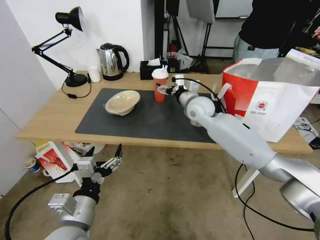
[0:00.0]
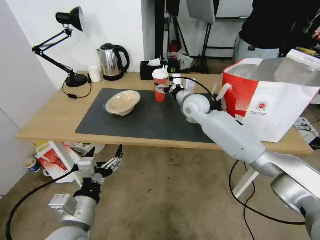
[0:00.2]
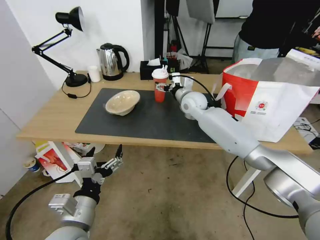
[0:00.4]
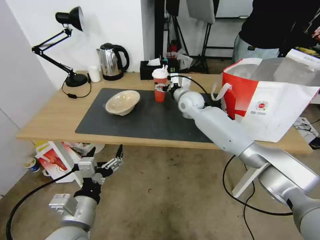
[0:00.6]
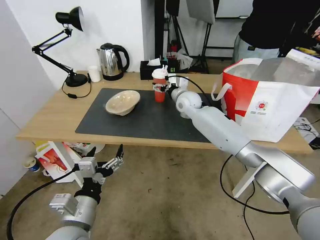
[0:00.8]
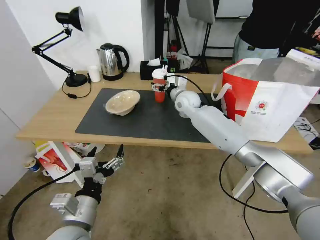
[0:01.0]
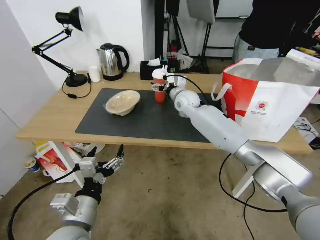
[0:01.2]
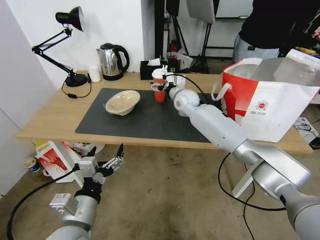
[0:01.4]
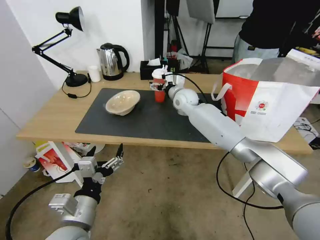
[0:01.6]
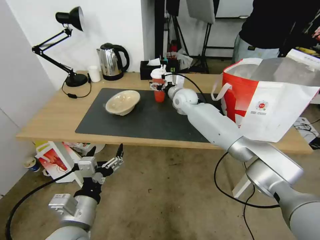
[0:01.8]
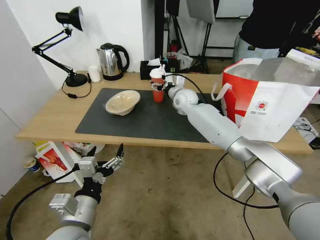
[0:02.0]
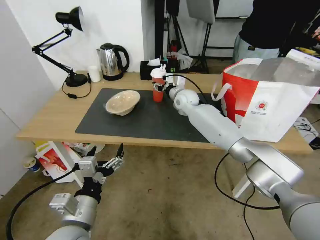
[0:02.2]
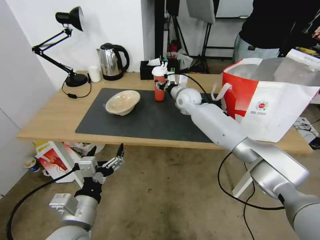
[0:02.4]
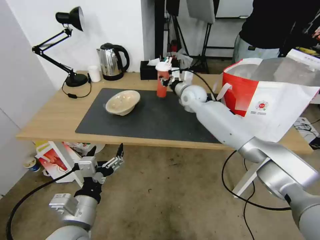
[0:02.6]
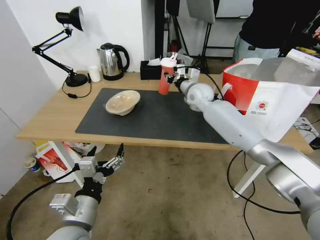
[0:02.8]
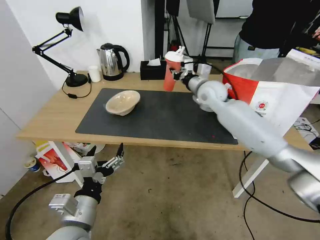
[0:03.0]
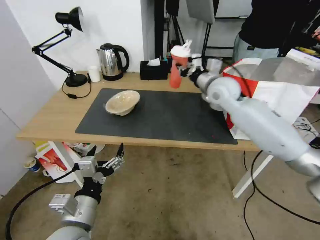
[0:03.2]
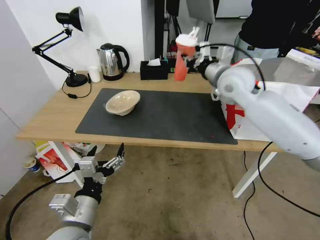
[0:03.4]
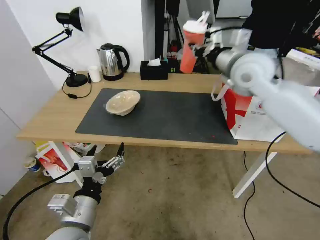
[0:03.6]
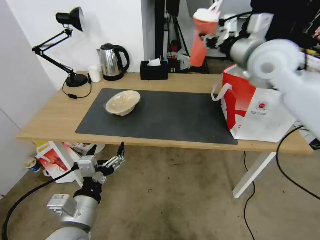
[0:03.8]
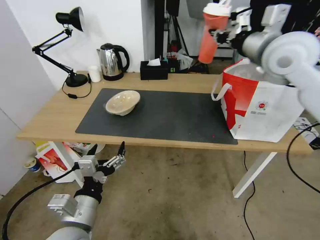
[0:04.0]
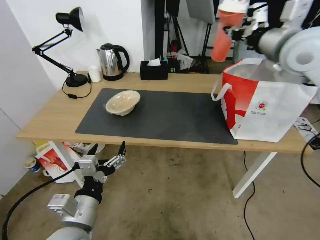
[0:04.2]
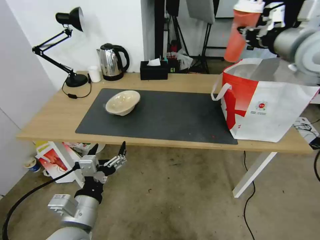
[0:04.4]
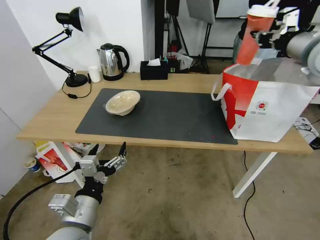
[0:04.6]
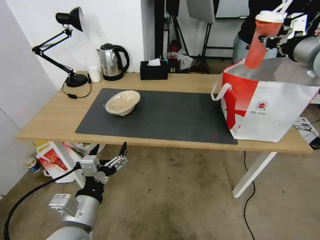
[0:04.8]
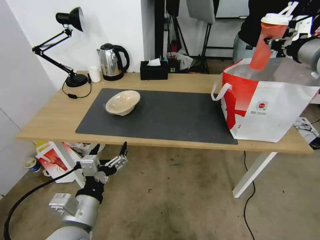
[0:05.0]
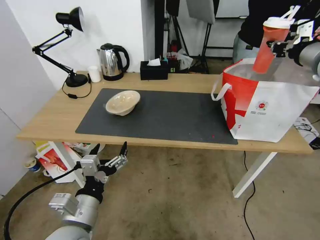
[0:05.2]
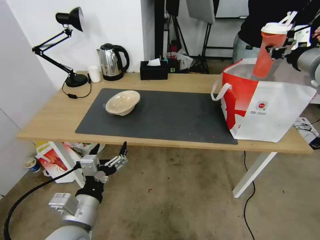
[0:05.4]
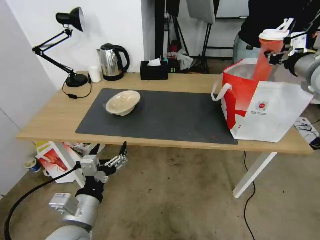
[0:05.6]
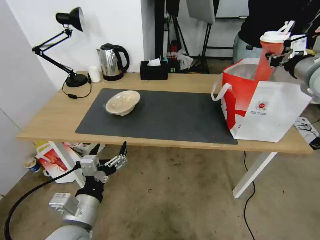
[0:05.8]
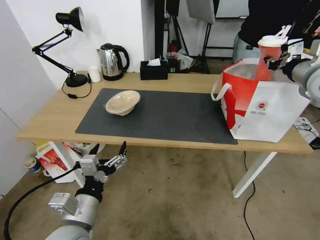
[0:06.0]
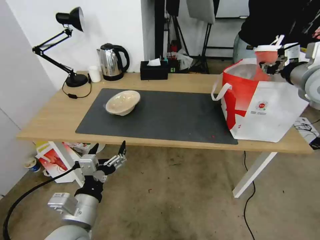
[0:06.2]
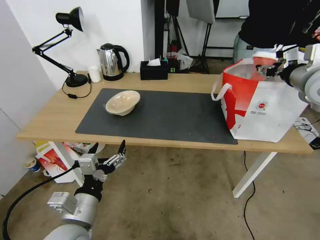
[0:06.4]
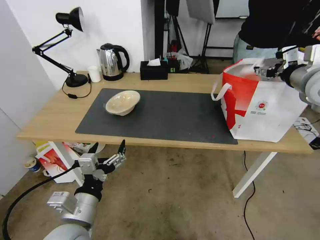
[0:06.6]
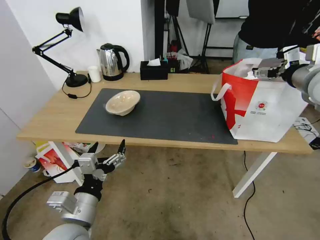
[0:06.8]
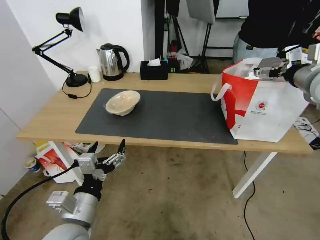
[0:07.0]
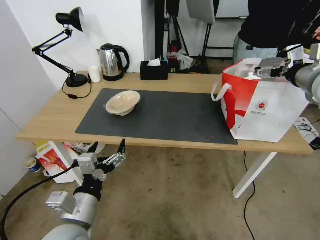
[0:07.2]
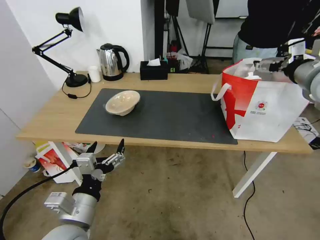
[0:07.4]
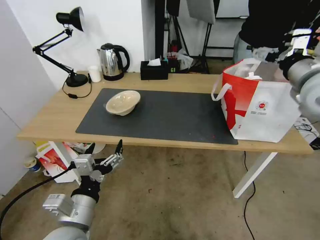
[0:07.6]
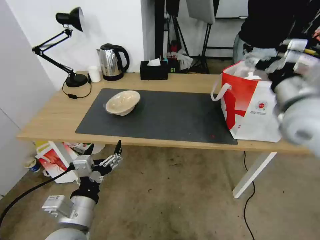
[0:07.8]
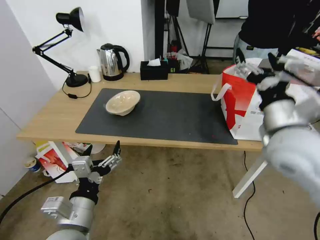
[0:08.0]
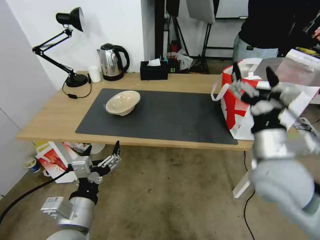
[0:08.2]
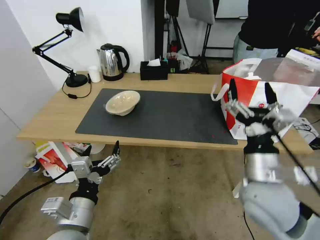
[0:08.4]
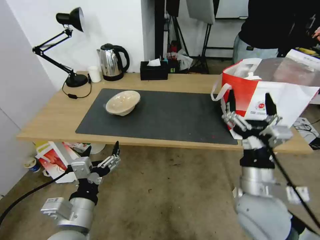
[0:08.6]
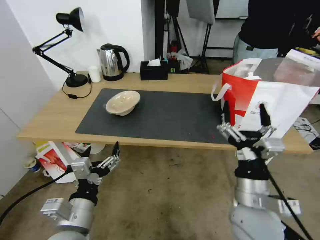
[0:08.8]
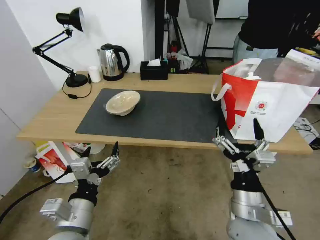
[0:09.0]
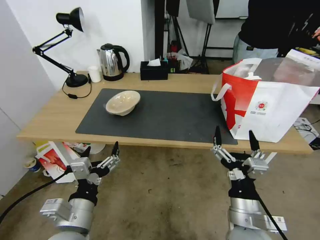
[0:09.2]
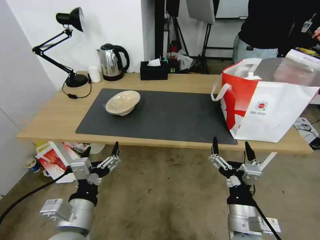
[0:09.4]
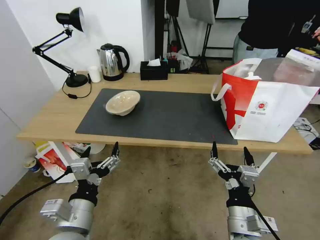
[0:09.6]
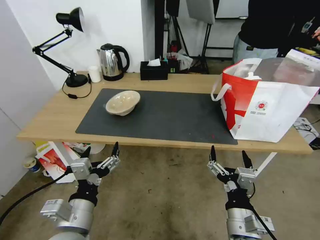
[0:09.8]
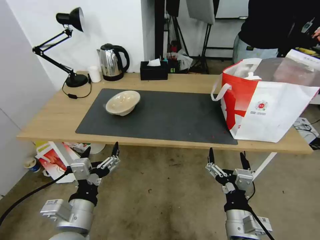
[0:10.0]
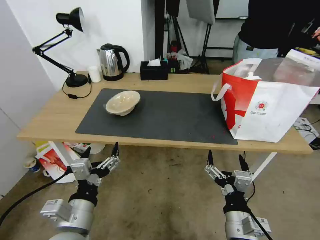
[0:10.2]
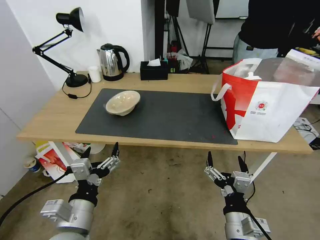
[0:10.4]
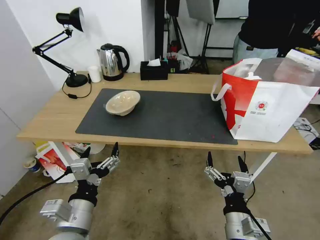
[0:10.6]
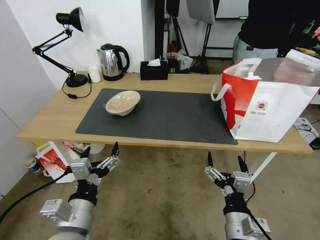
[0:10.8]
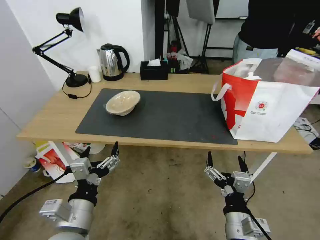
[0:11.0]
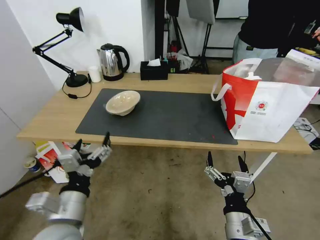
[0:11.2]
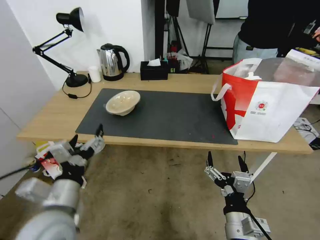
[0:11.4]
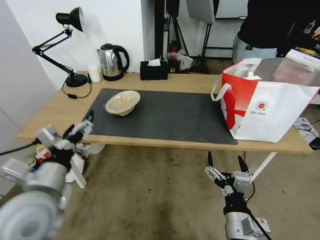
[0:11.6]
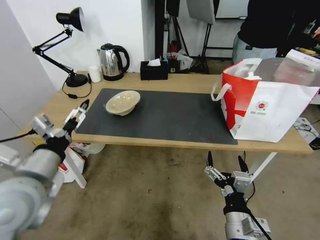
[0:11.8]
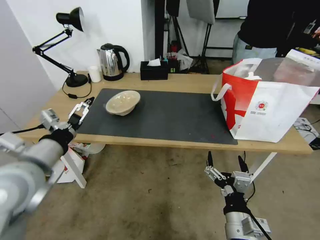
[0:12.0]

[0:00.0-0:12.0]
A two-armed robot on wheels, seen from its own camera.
Task of the whole recording: Pick up the trash from the table and place it into the takeout bag.
0:00.0 to 0:01.6: The right gripper goes about 10 cm forward.
0:01.6 to 0:03.0: The right gripper shifts about 10 cm to the right and upward, and closes its fingers.
0:03.0 to 0:04.4: The right gripper is displaced upward, to the right and backward by roughly 30 cm.
0:04.4 to 0:06.0: The right gripper is displaced downward and to the right by roughly 10 cm.
0:06.0 to 0:07.6: The right gripper opens up.
0:07.6 to 0:09.0: The right gripper goes about 35 cm downward, backward and to the left.
0:09.0 to 0:10.4: The right gripper shifts about 10 cm backward and downward.
0:10.4 to 0:12.0: The left gripper heads upward, forward and to the left, covering about 20 cm.

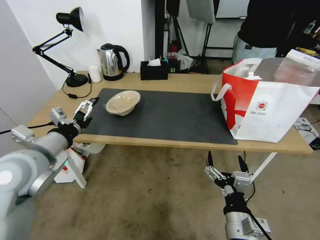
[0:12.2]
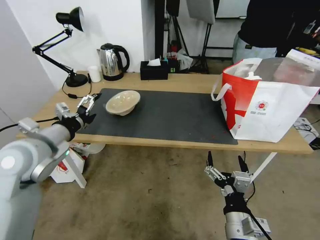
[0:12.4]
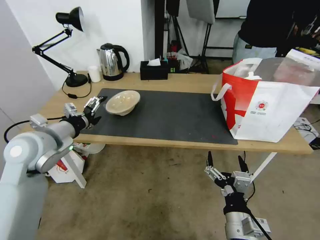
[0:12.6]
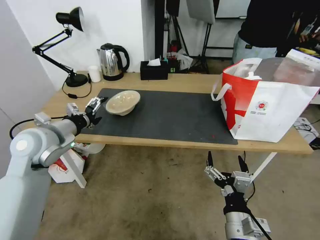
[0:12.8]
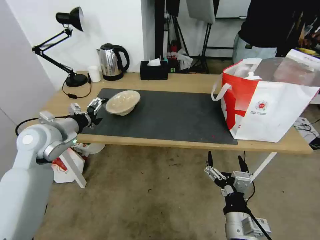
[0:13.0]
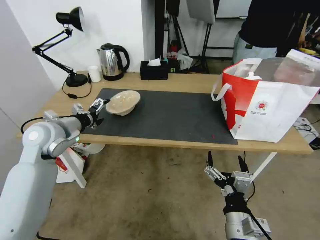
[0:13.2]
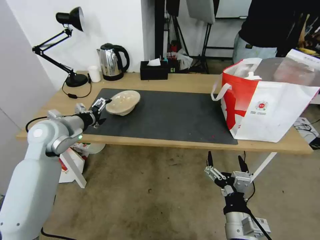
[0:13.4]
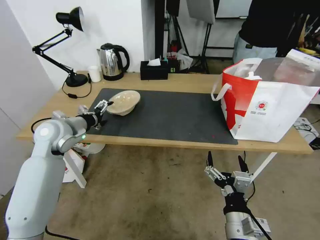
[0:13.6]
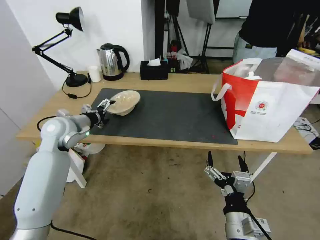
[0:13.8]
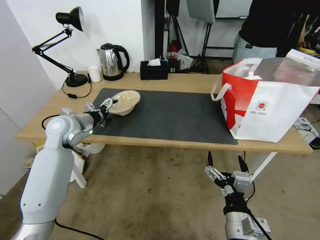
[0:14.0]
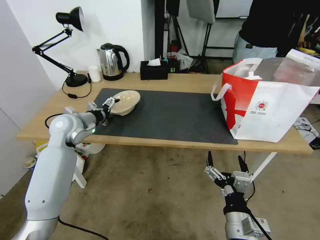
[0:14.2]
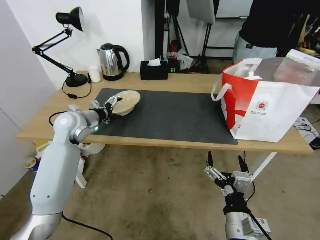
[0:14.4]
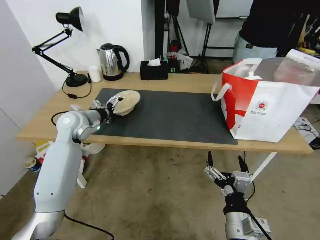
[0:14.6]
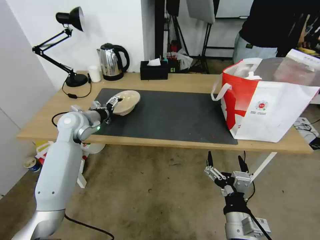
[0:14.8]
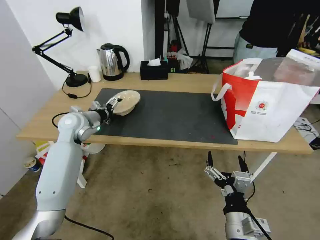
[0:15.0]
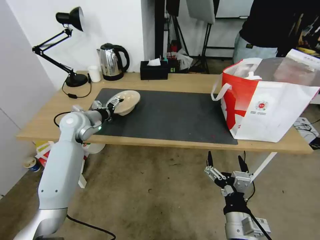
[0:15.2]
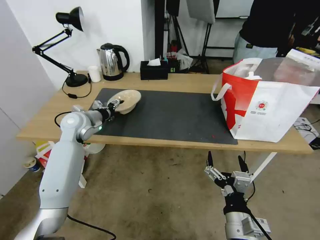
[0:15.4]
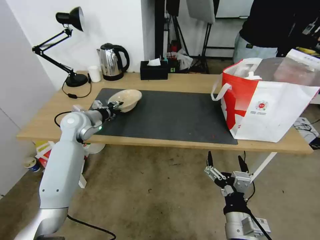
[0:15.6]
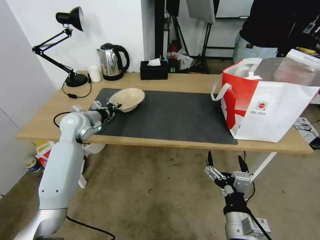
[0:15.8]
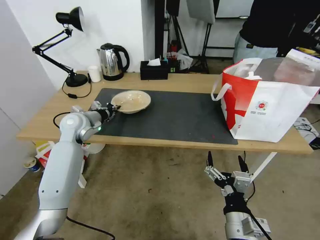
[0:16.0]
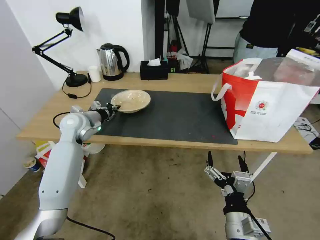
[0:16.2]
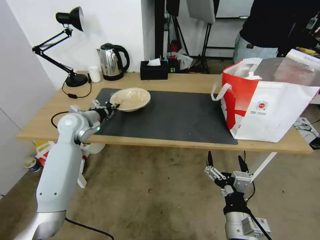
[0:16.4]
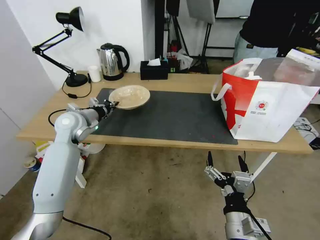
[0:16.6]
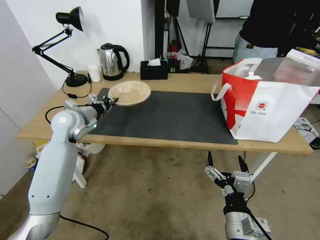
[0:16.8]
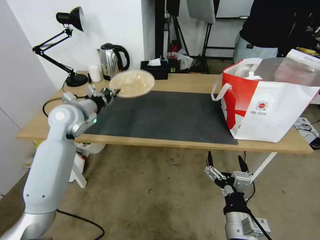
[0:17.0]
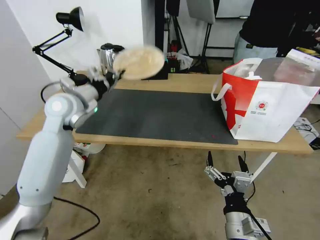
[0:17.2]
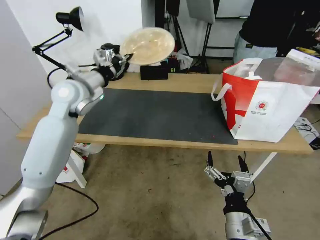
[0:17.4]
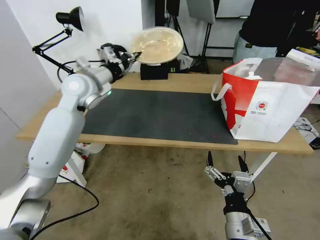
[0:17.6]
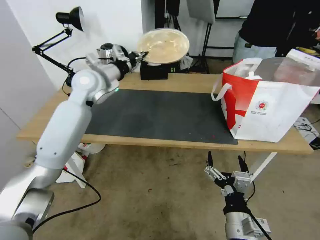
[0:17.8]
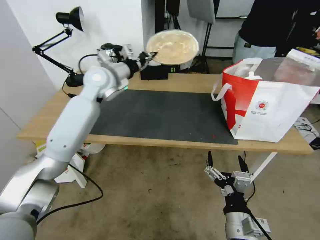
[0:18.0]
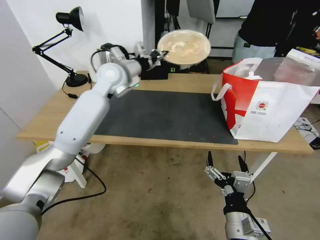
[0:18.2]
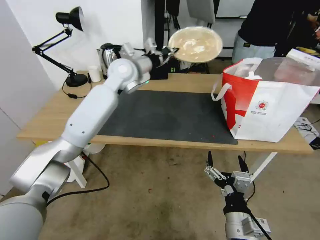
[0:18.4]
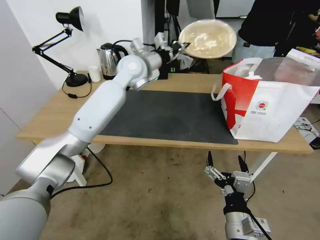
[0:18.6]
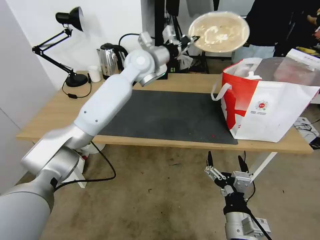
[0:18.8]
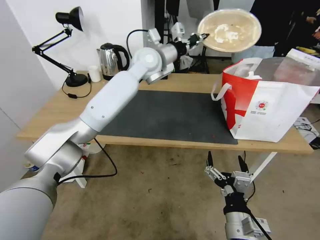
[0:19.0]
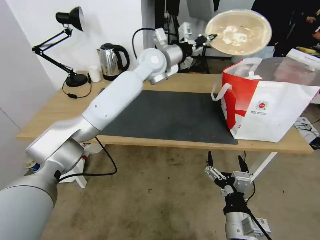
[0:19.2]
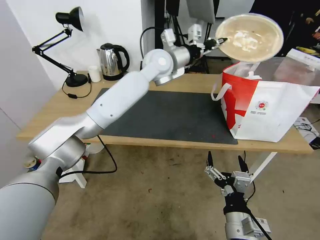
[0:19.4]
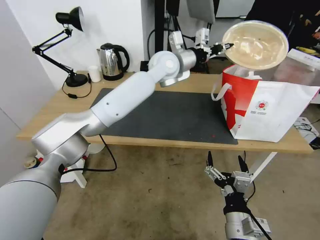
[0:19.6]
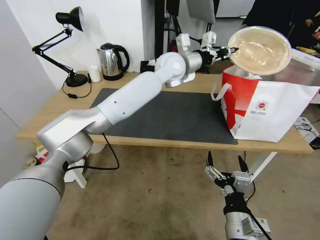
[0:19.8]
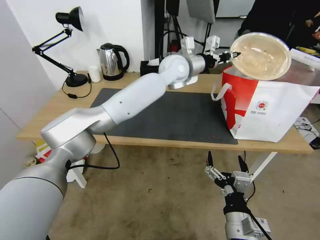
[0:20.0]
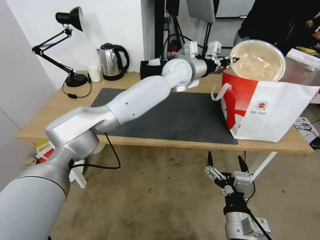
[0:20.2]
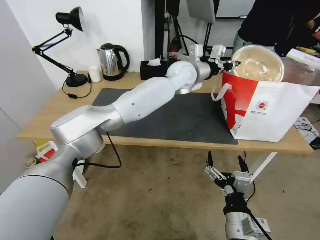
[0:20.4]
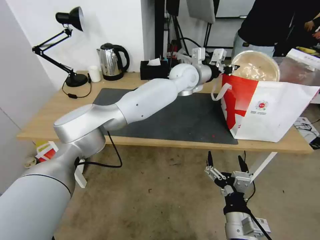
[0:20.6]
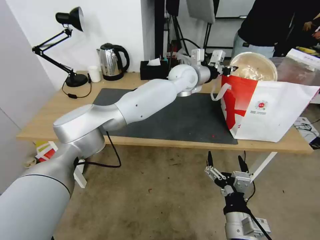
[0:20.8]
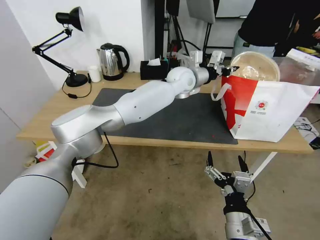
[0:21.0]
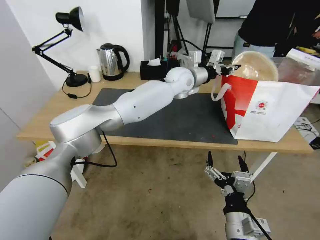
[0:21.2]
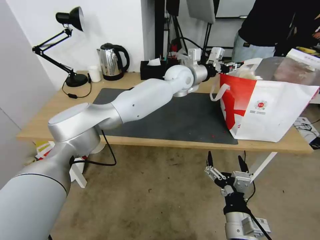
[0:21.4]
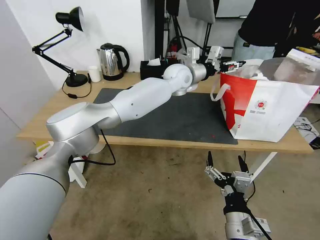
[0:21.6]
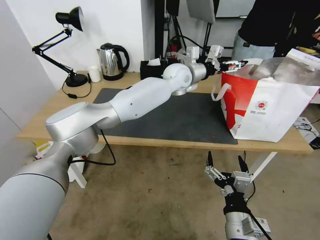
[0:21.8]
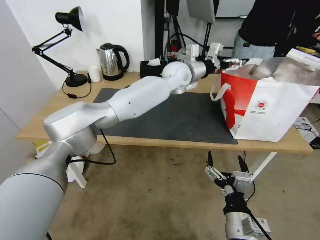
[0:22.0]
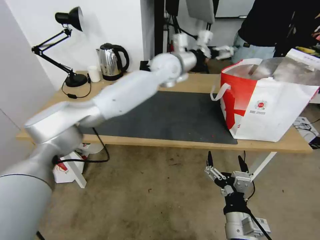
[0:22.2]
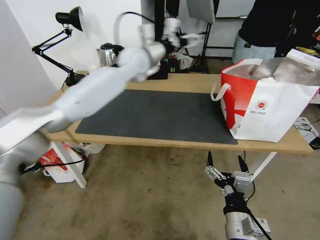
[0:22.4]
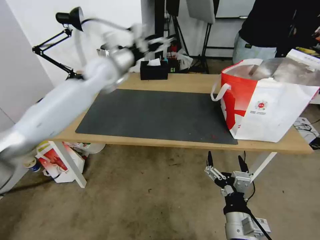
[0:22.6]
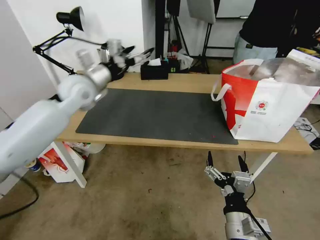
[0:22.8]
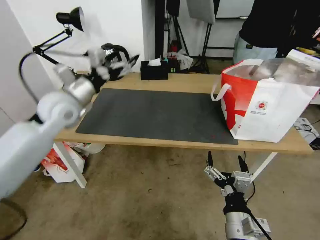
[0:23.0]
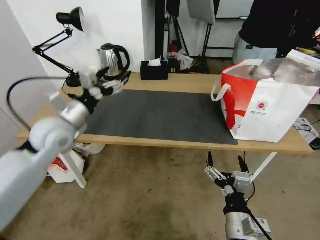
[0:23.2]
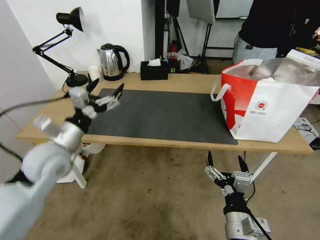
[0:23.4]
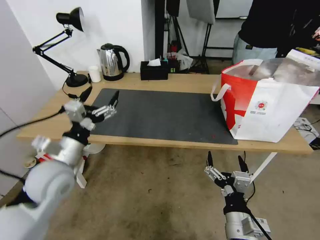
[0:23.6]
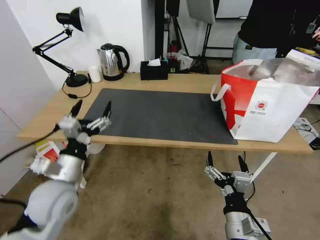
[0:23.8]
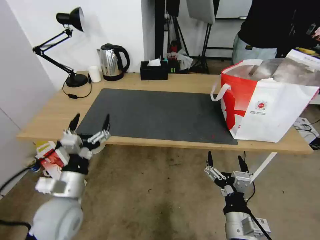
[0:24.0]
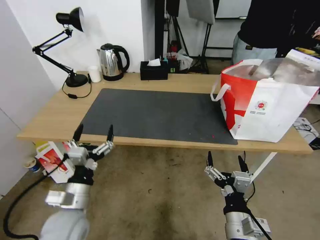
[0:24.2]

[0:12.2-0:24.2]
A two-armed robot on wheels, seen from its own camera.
Task of the whole recording: Pick up the trash from the table and place it into the takeout bag.
0:12.2 to 0:13.8: The left gripper moves forward, roughly 15 cm.
0:13.8 to 0:15.2: The left gripper shifts by about 5 cm.
0:15.2 to 0:16.6: The left gripper closes its fingers.
0:16.6 to 0:18.2: The left gripper shifts about 20 cm to the right, upward and forward.
0:18.2 to 0:19.8: The left gripper travels to the right by about 20 cm.
0:19.8 to 0:21.2: The left gripper heads downward, covering some 5 cm.
0:21.2 to 0:22.6: The left gripper goes roughly 25 cm to the left, and opens its fingers.
0:22.6 to 0:24.2: The left gripper moves backward and downward, about 40 cm.
